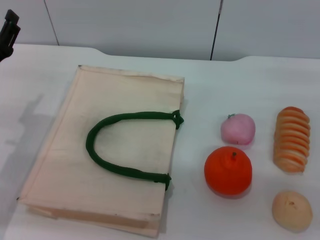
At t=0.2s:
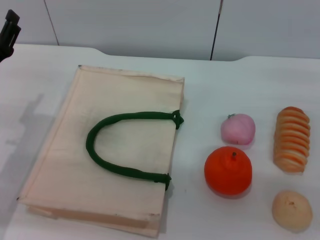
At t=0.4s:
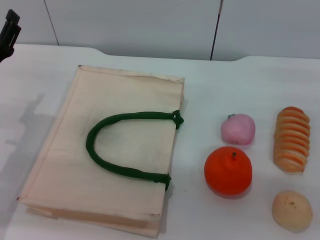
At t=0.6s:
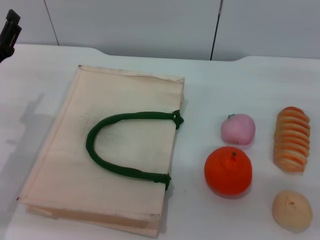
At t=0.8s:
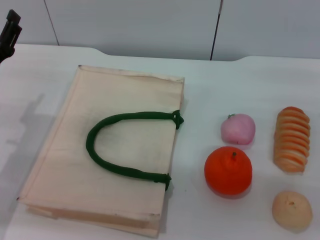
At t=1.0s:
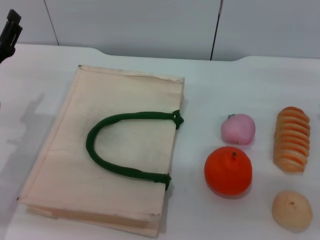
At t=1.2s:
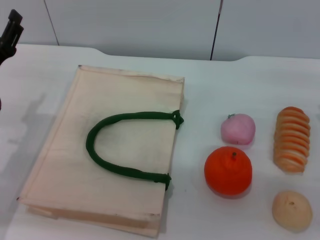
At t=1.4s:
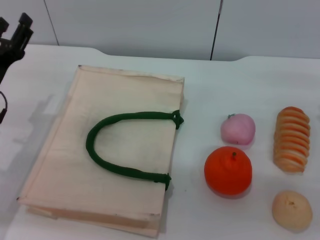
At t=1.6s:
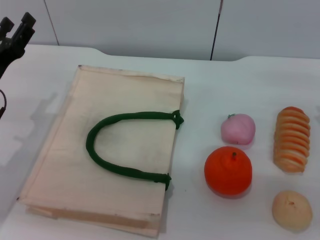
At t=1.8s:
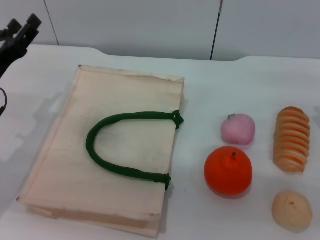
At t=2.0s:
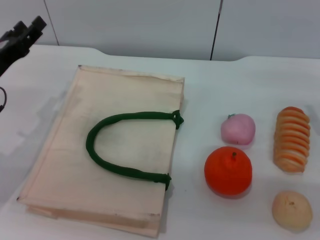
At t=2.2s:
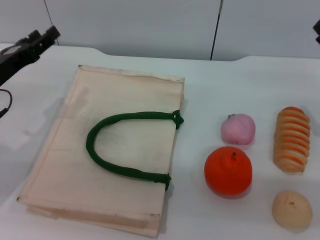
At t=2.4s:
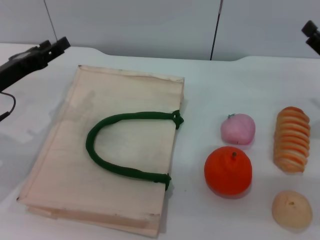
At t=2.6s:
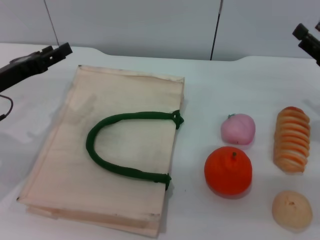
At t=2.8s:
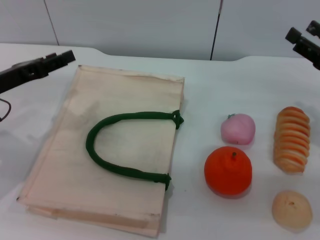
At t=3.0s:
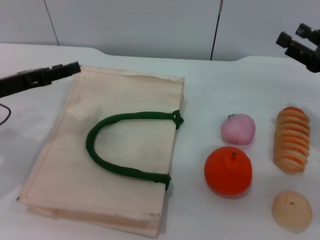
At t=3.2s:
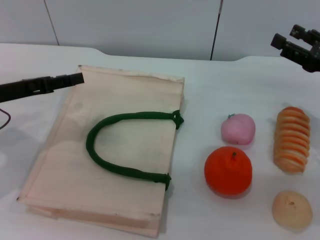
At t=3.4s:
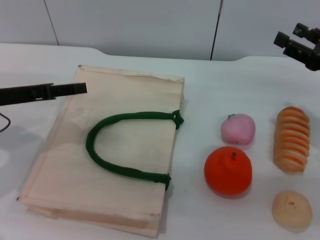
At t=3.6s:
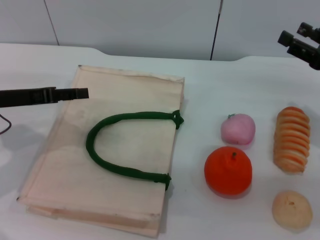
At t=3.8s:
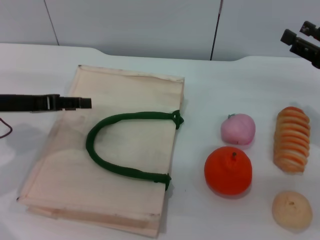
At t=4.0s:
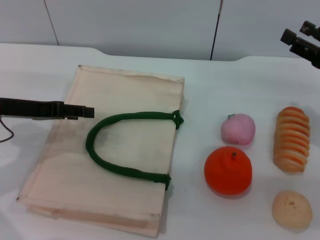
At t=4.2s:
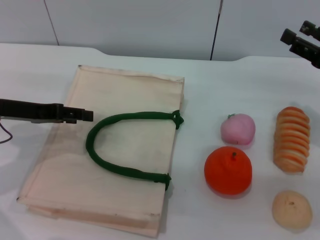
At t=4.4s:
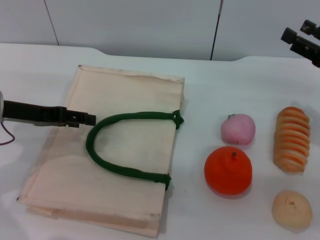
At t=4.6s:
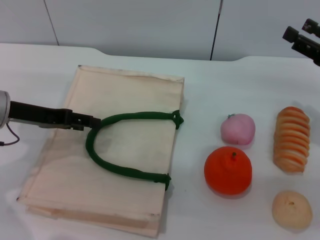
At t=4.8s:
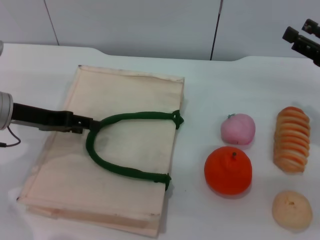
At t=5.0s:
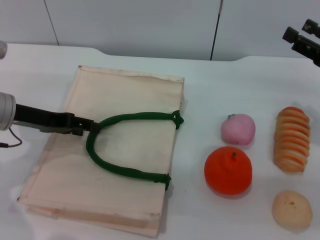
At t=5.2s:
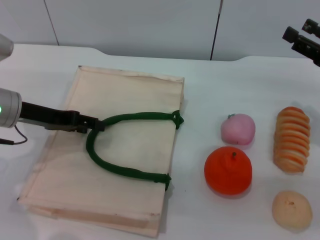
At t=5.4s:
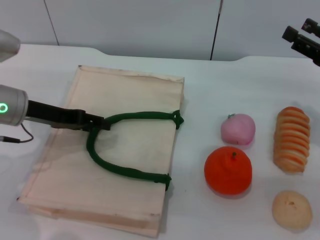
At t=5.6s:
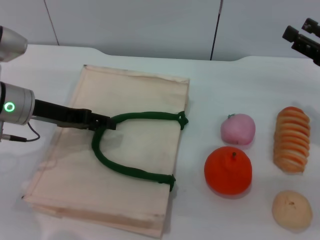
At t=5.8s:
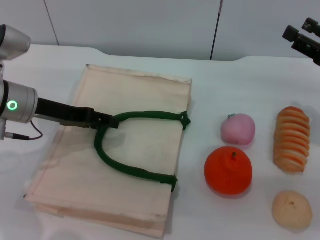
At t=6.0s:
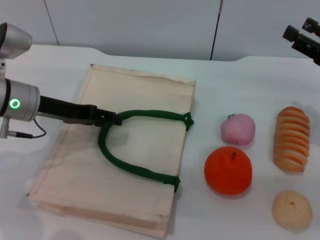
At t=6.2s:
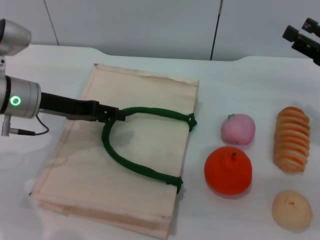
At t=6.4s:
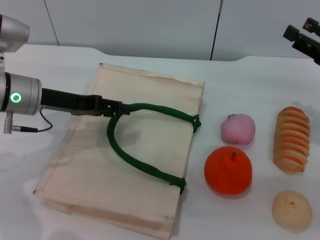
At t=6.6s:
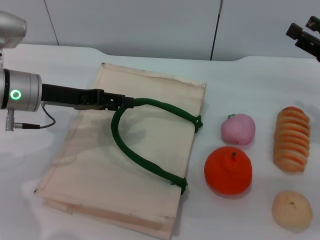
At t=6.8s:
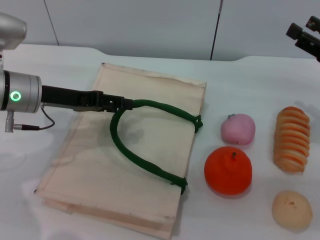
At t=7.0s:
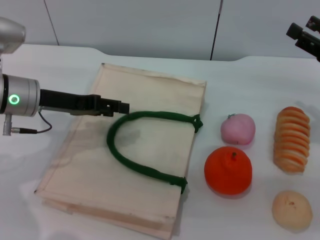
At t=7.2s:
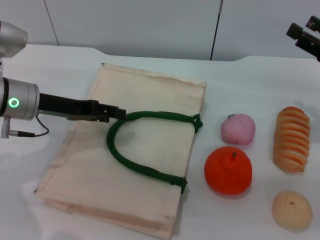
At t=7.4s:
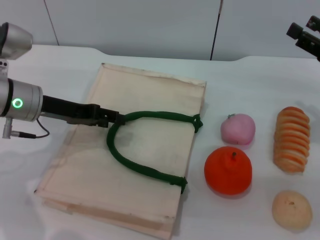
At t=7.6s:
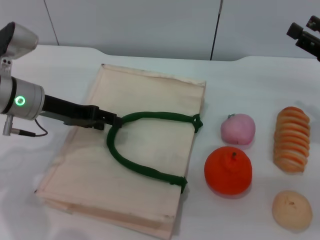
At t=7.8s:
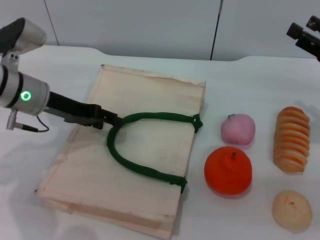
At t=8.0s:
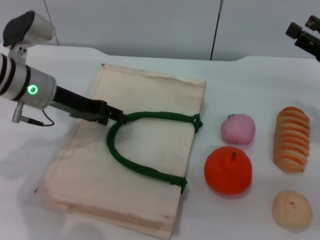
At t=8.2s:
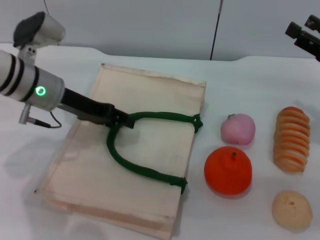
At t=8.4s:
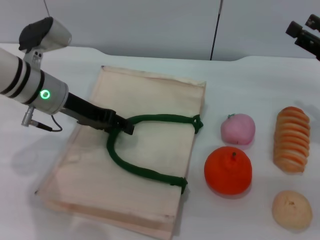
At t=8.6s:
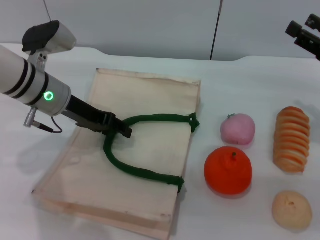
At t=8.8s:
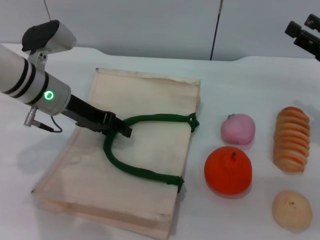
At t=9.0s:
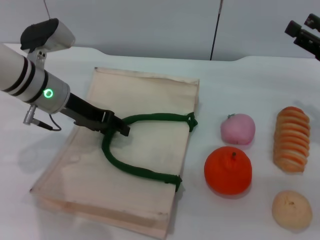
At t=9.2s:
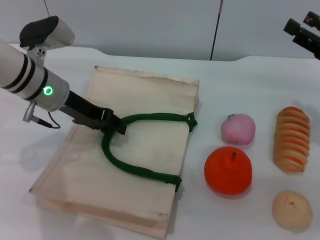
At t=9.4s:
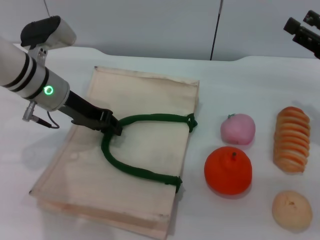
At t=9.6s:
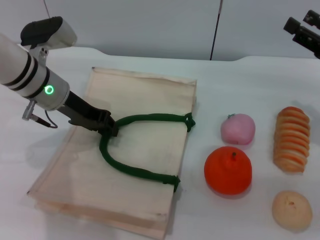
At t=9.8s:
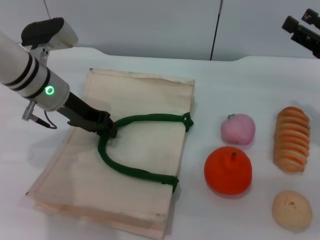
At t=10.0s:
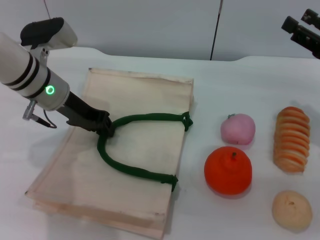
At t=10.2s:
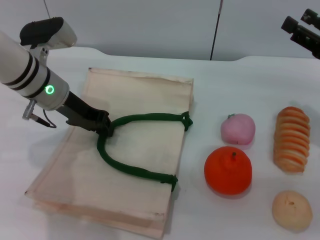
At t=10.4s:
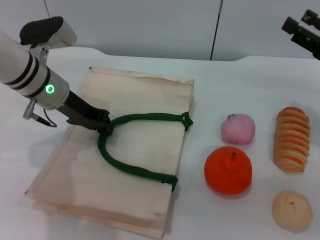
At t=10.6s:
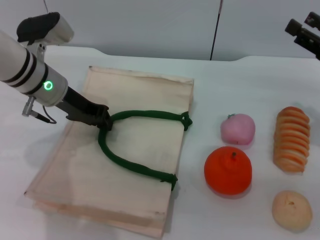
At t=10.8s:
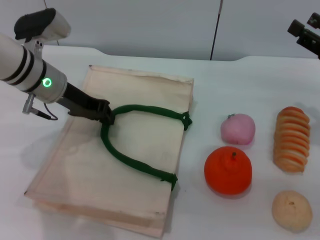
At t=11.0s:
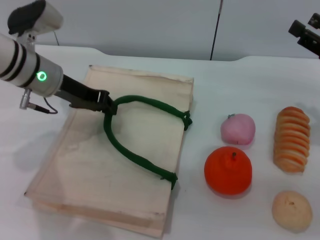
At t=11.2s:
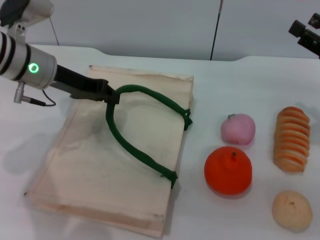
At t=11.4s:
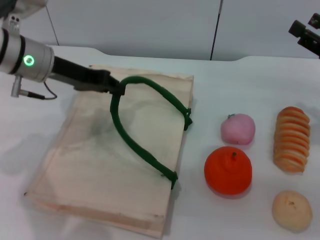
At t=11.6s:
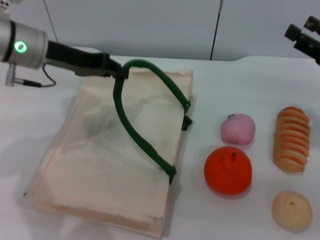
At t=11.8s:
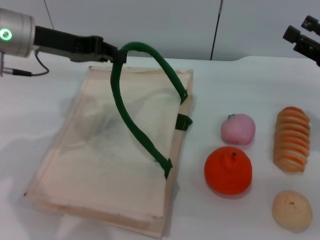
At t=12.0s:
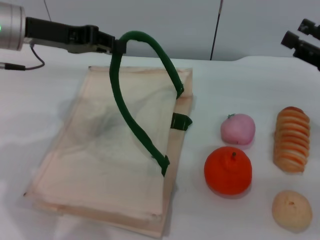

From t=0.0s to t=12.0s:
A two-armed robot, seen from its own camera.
Task of the whole recording: pick up the orange from the table and place it in the white handbag.
From t=0.0s to t=1.6s: The grippers stay close to where they were, moving slightly.
From t=4.4s to t=6.0s: The left gripper ends up about 5 cm from where it was.
From t=6.0s to t=9.0s: The grippers stay close to where they were, moving slightly.
From t=9.0s to t=10.4s: The left gripper closes up.
From t=10.4s to t=12.0s: The left gripper travels upward by some 10 cm.

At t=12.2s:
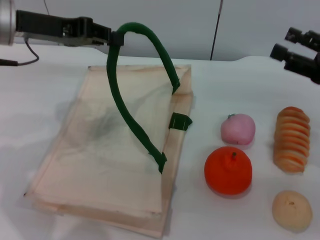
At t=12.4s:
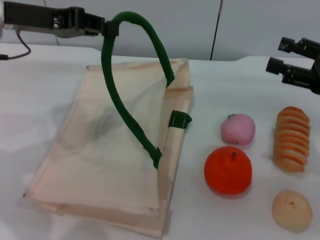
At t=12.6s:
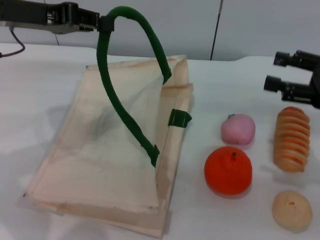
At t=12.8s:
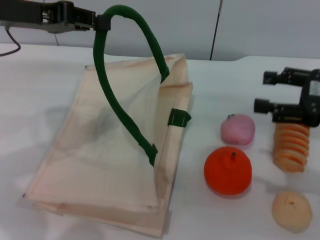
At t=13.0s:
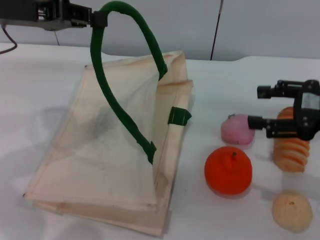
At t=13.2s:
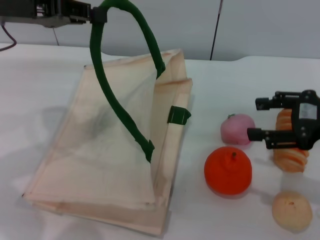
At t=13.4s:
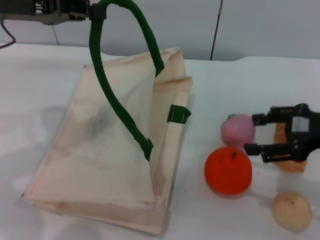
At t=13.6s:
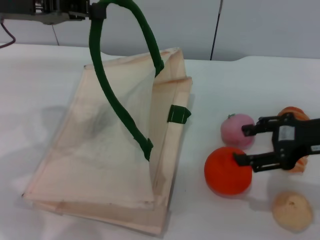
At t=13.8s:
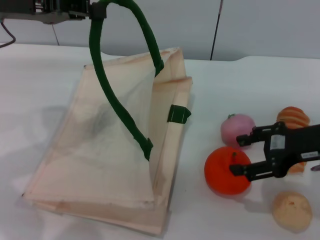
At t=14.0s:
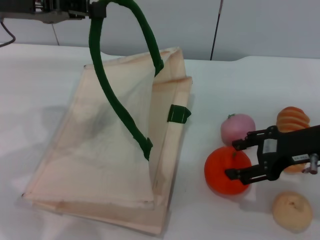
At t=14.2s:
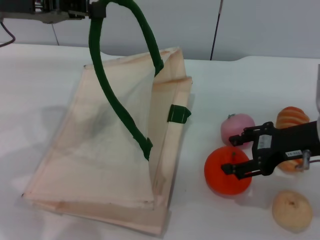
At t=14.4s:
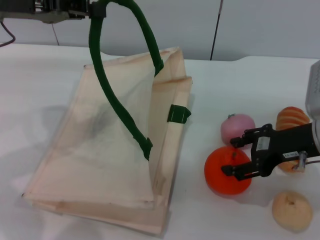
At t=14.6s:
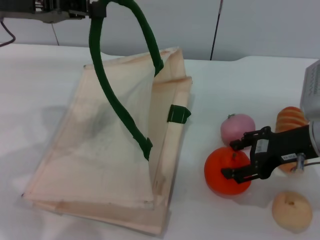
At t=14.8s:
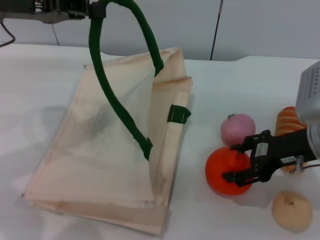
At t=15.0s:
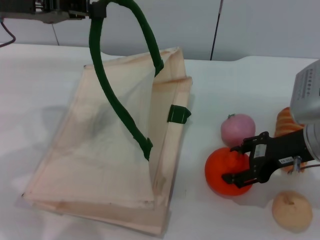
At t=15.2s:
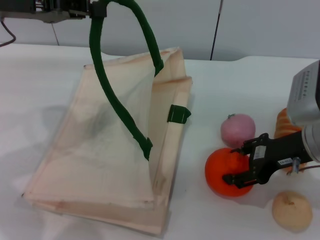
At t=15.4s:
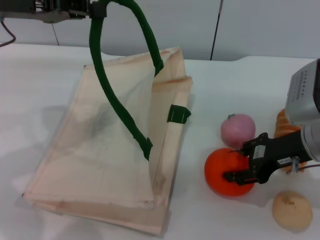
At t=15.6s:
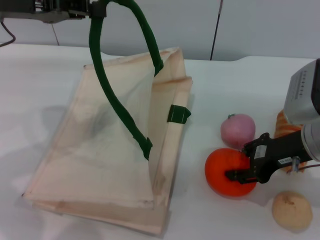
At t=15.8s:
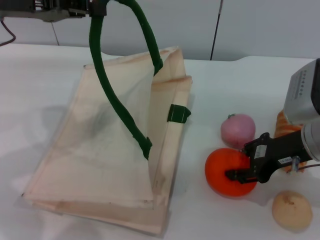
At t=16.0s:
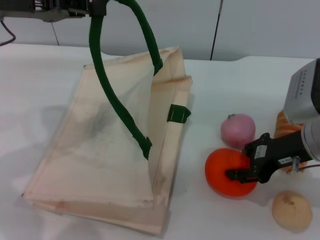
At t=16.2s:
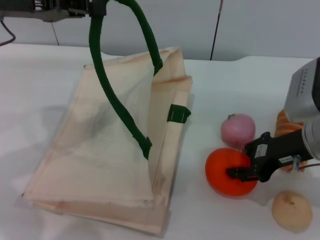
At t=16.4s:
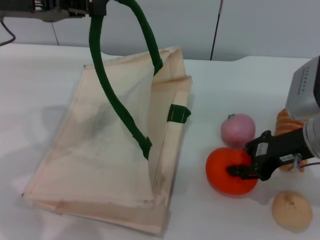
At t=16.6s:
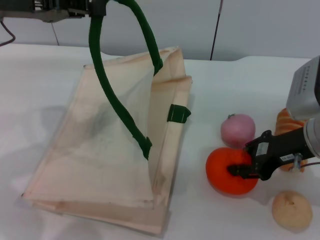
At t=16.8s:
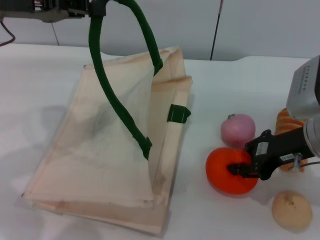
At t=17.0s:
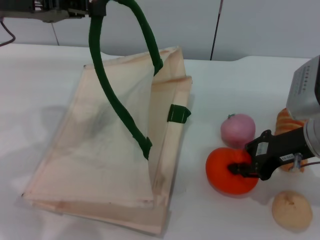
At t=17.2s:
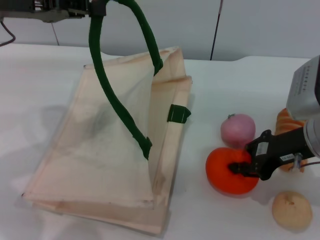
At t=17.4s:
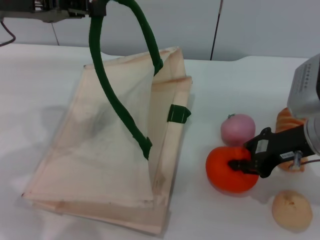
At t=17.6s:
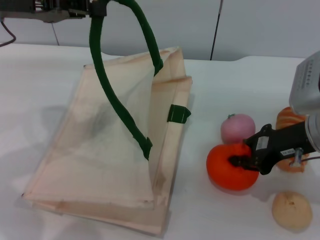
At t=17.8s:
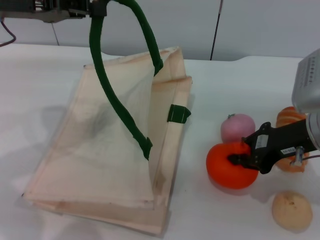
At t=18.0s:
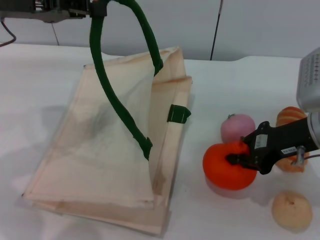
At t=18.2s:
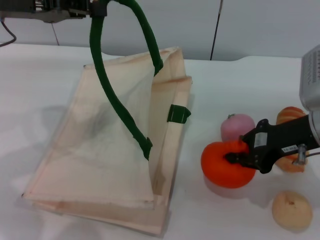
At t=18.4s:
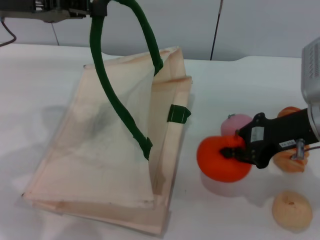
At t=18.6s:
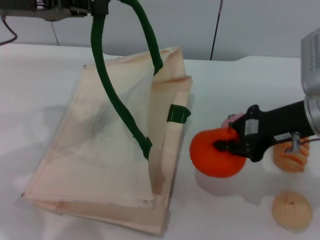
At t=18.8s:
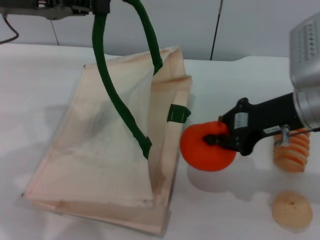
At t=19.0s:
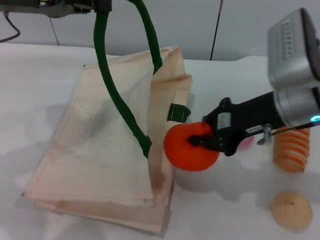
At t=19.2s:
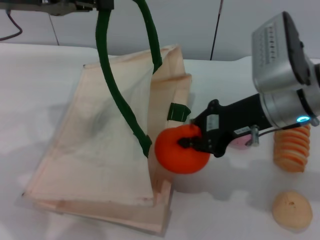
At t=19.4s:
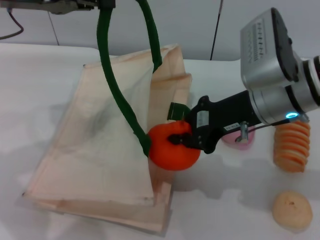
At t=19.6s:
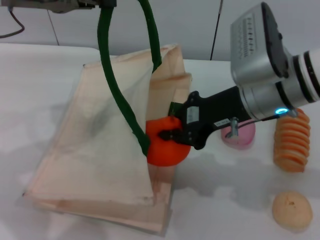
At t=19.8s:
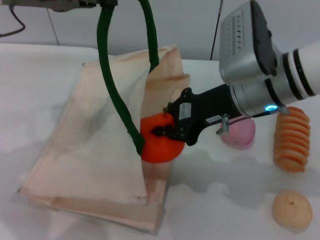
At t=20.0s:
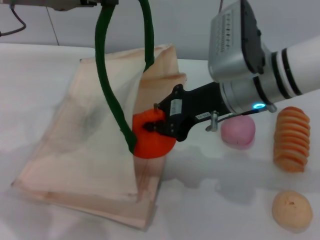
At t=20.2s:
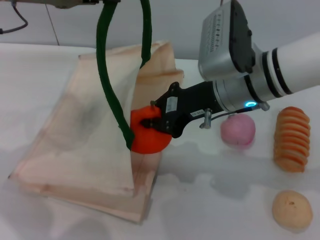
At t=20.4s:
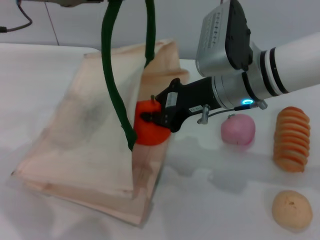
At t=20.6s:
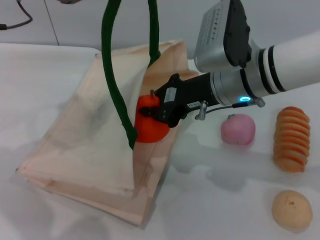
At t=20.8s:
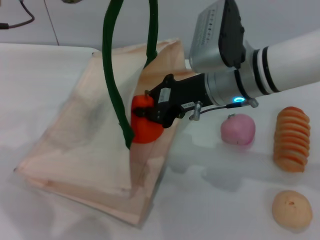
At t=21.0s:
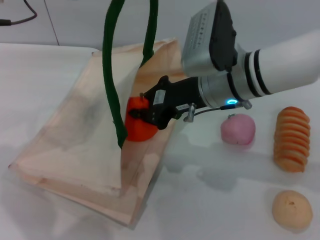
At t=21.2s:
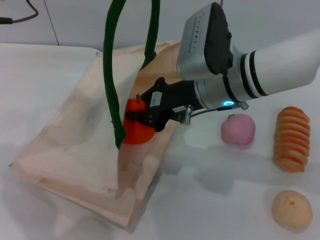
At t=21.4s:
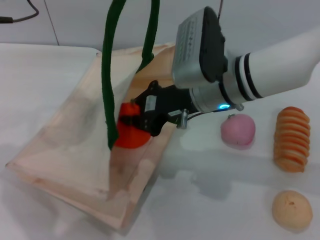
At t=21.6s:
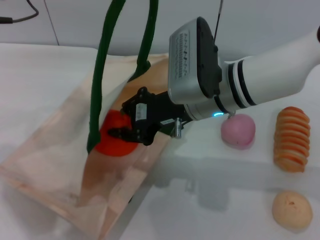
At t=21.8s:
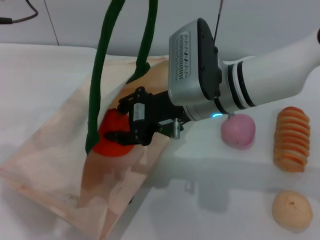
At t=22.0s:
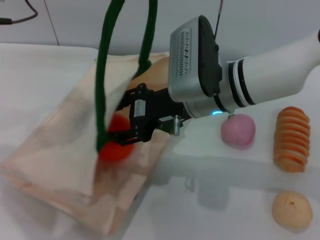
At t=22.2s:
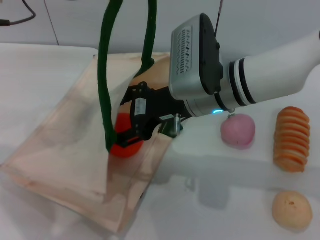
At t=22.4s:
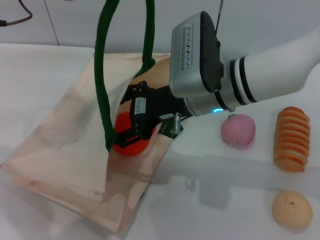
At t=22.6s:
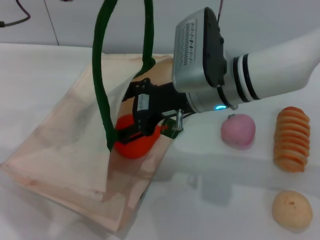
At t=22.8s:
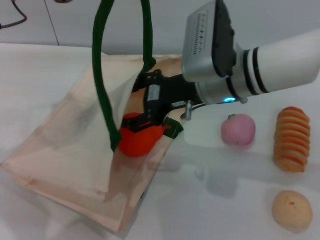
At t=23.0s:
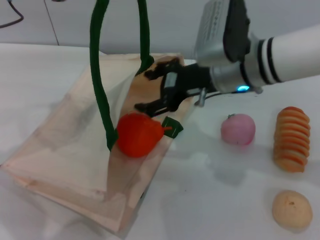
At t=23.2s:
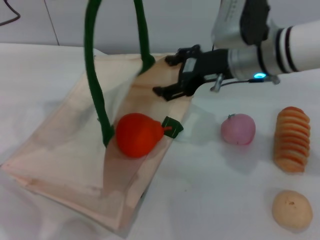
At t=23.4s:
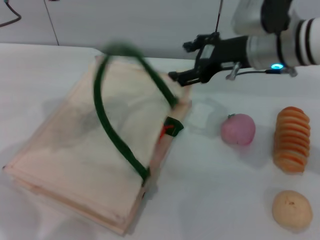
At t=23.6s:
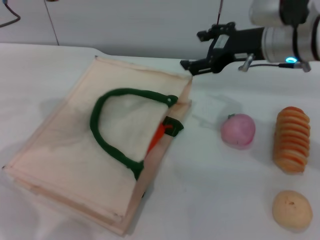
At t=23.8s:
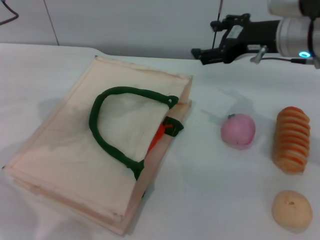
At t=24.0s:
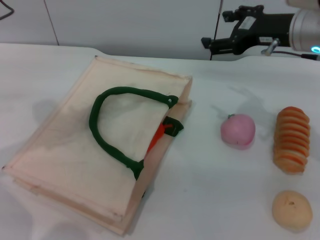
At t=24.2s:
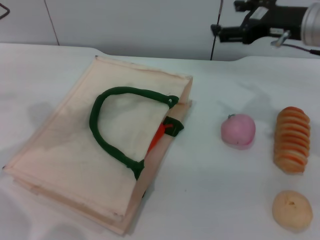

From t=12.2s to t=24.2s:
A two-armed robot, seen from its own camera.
Task of the whole recording: pick up the orange from the table and place it in the white handbag.
Step, from t=12.4s to t=22.4s: Pick up the orange with the right gripper.
Step, from t=22.8s to t=23.4s: Lower the woven bag with the left gripper to close it.
From t=12.2s to t=13.8s: The right gripper heads to the left, covering some 5 cm.
From t=13.8s to t=15.2s: The grippers stay close to where they were, moving slightly.
From t=15.2s to t=16.6s: The right gripper closes.
From t=16.6s to t=18.2s: The grippers stay close to where they were, moving slightly.
From t=18.2s to t=19.8s: The right gripper travels to the left by approximately 10 cm.
From t=19.8s to t=21.2s: The right gripper shifts by approximately 5 cm.
From t=21.2s to t=22.6s: The right gripper opens.
From t=22.6s to t=24.2s: The left gripper opens its fingers, while the right gripper goes roughly 15 cm to the right.
